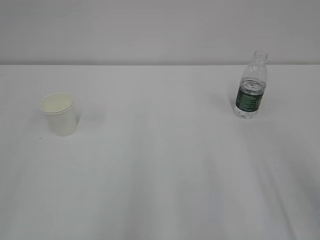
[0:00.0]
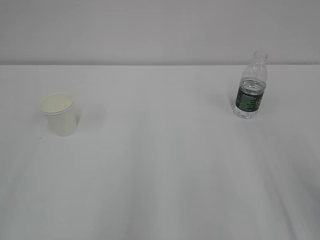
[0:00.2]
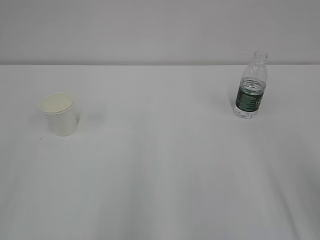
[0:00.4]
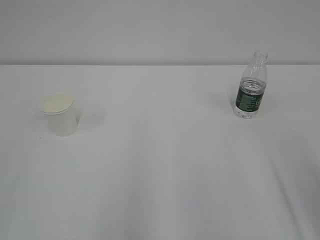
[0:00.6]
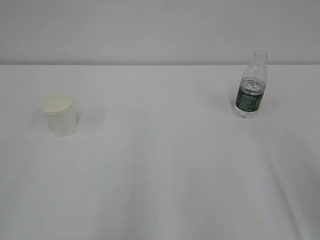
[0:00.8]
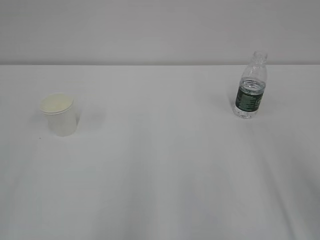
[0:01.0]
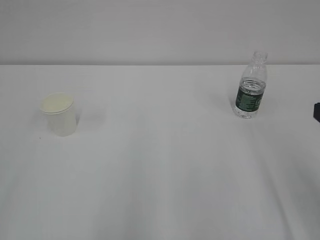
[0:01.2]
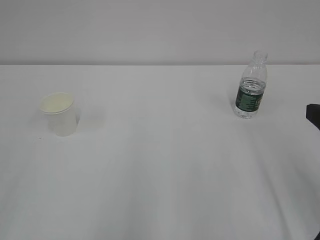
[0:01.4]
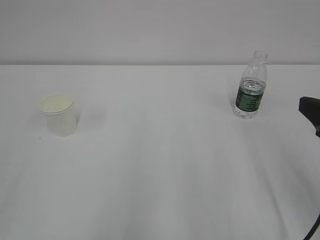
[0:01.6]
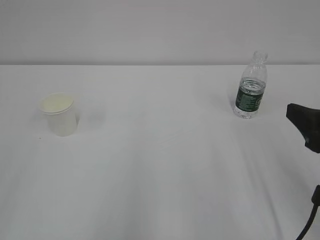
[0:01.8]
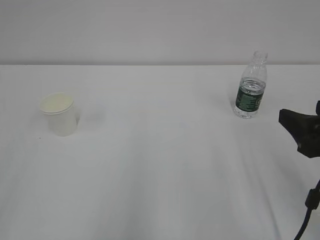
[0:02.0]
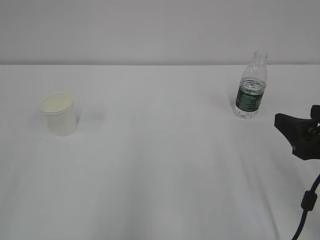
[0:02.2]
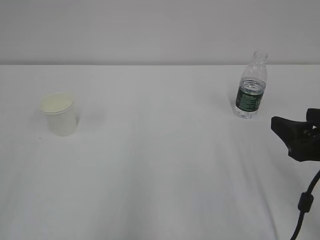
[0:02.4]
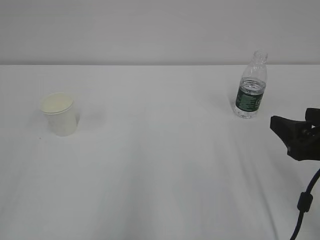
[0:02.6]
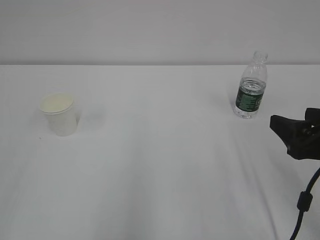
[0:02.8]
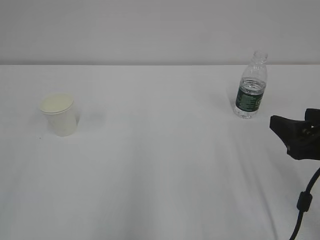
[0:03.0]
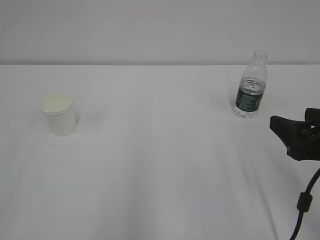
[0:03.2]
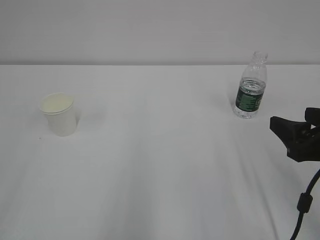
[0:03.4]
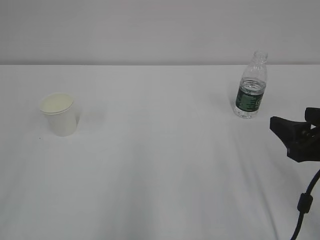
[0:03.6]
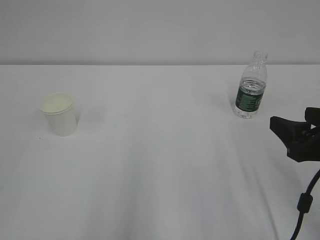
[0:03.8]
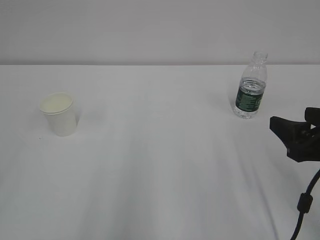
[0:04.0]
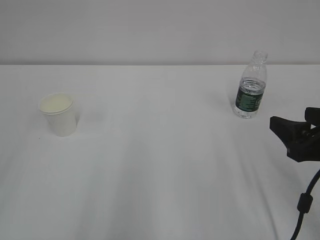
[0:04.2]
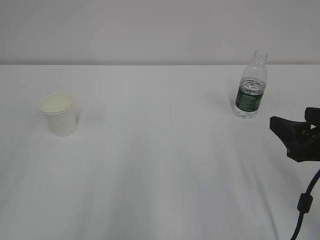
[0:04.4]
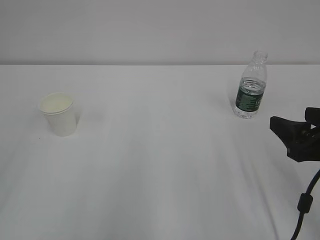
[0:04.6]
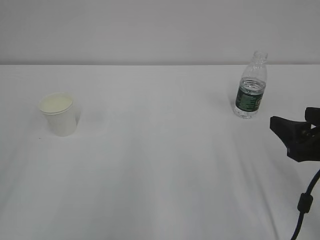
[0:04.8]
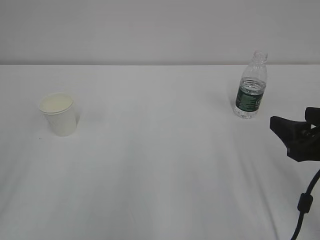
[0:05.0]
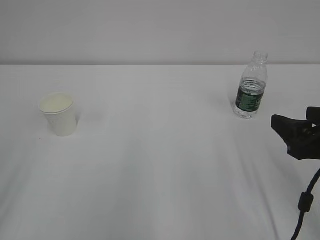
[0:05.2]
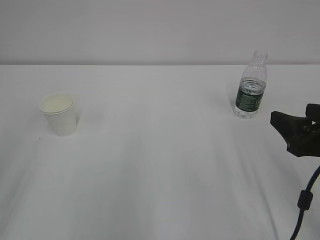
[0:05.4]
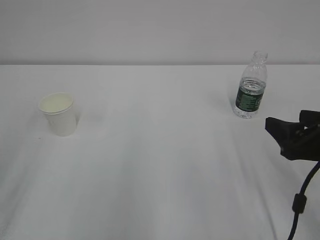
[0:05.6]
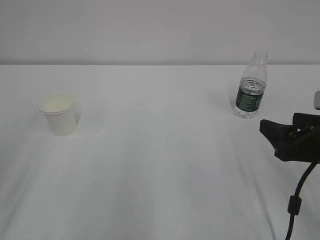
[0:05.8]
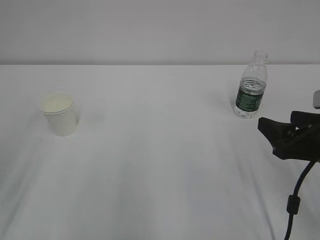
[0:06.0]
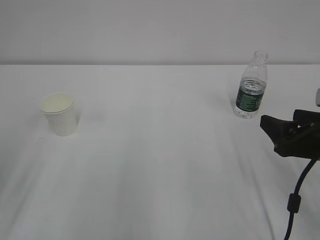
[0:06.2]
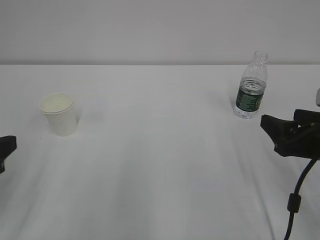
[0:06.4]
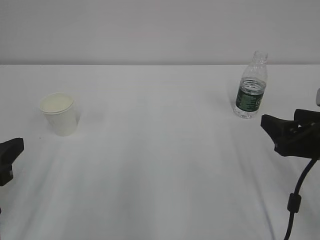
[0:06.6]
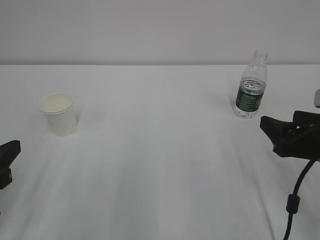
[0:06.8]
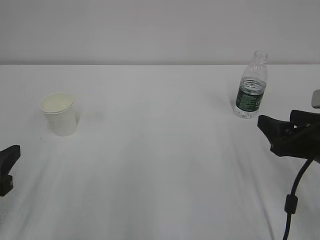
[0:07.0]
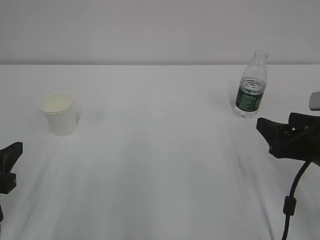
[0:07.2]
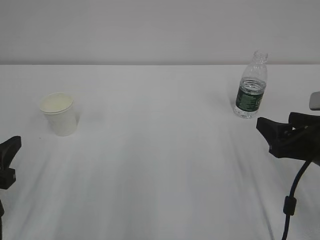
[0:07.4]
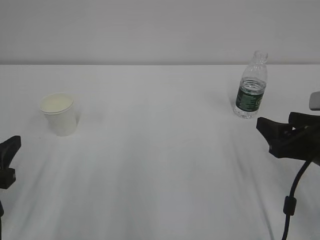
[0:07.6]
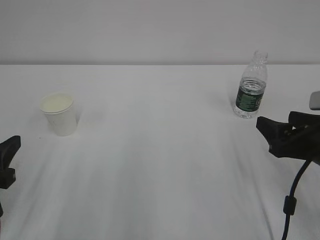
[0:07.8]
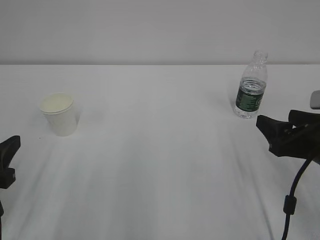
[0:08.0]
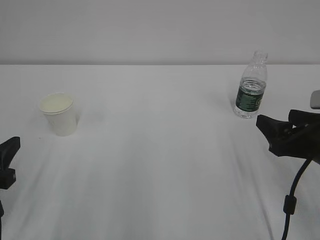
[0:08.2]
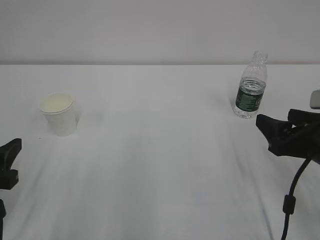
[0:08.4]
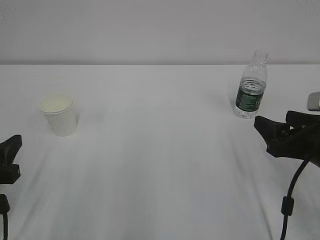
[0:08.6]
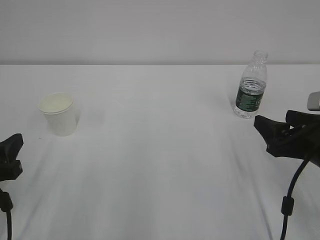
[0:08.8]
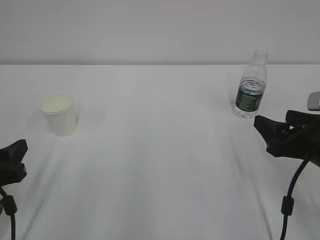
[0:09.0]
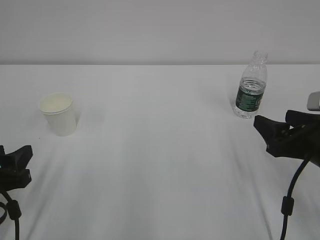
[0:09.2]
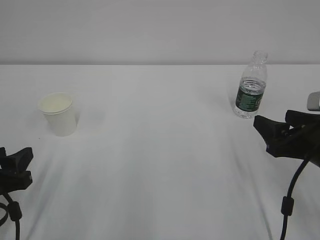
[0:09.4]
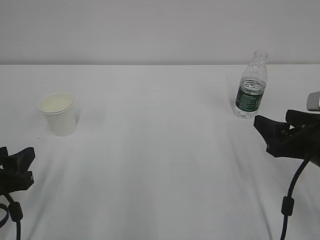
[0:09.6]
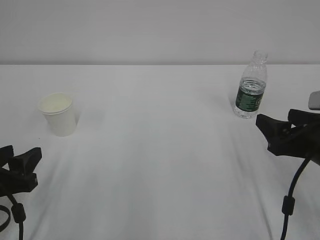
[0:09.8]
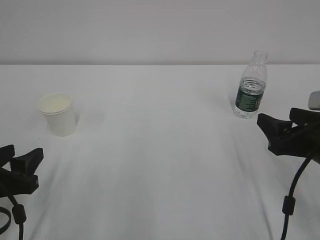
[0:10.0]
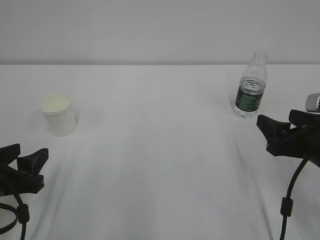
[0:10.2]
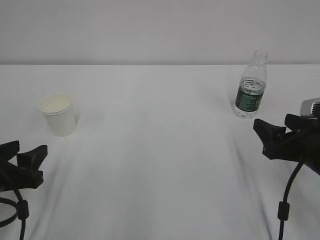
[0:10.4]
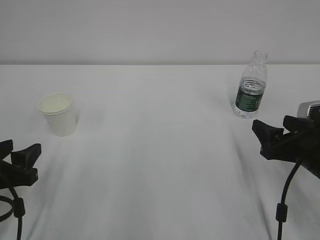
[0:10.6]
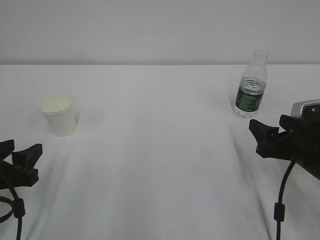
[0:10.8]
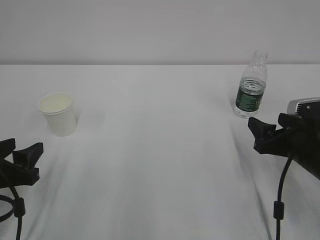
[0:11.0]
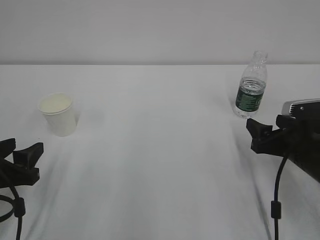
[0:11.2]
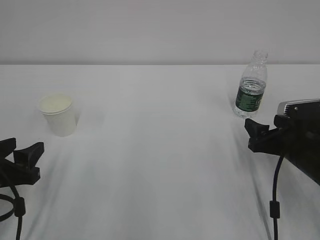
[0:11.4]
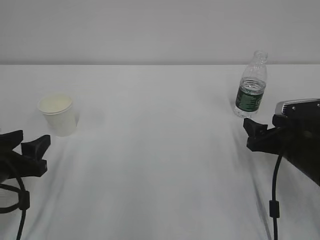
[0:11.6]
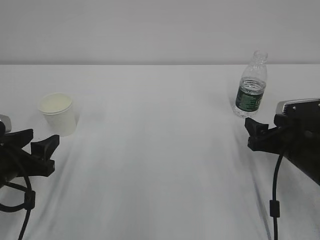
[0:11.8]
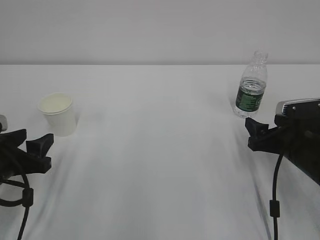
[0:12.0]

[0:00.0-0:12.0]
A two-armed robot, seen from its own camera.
0:00.0 to 0:01.6: The right gripper ends up some 5 cm from where it was.
0:01.6 to 0:03.0: The right gripper ends up about 5 cm from where it was.
0:06.0 to 0:07.6: The left gripper shifts about 5 cm downward.
0:07.6 to 0:10.4: The grippers make only small movements.
0:10.4 to 0:12.0: The right gripper moves some 5 cm.

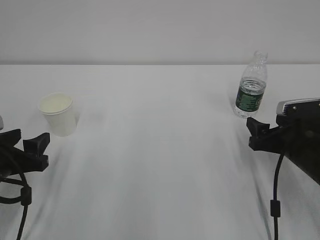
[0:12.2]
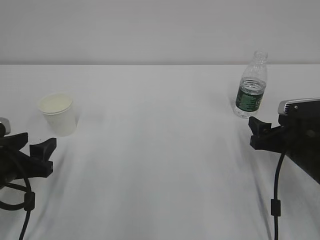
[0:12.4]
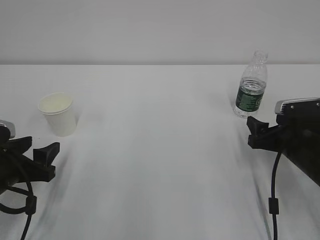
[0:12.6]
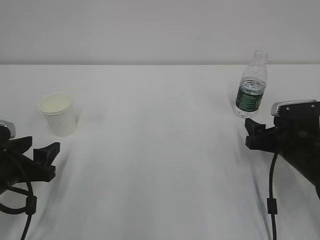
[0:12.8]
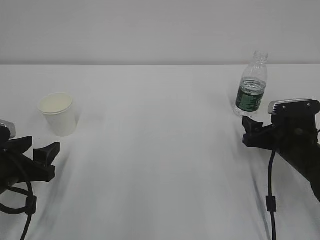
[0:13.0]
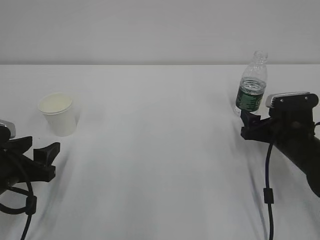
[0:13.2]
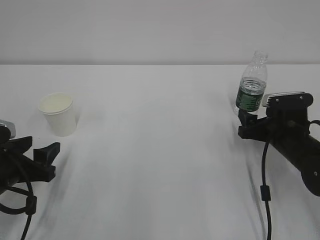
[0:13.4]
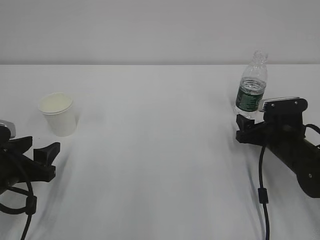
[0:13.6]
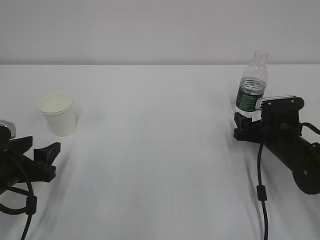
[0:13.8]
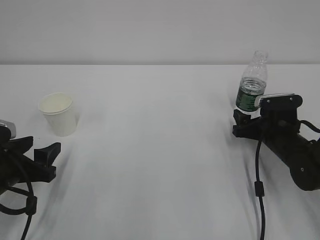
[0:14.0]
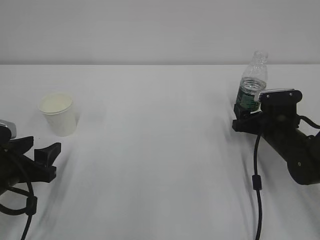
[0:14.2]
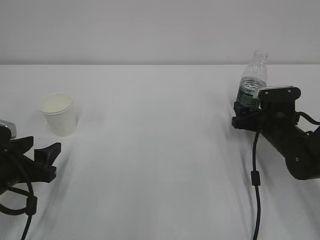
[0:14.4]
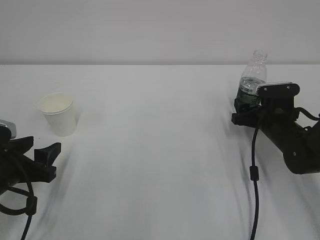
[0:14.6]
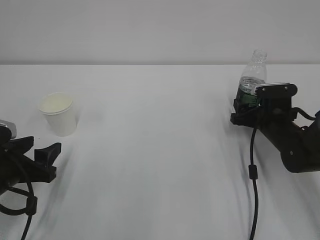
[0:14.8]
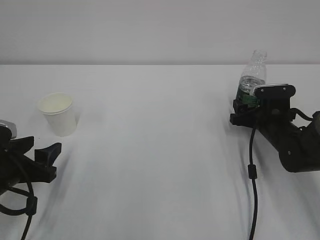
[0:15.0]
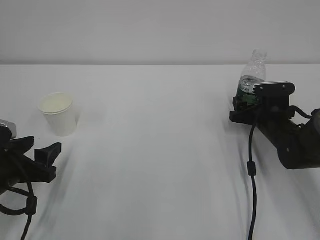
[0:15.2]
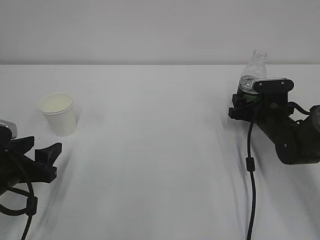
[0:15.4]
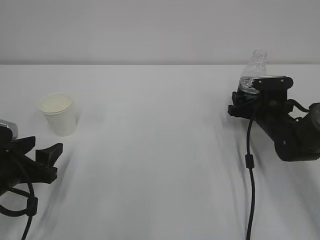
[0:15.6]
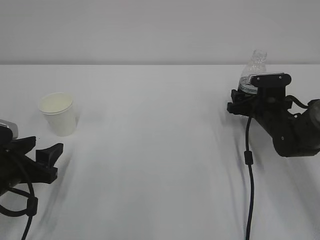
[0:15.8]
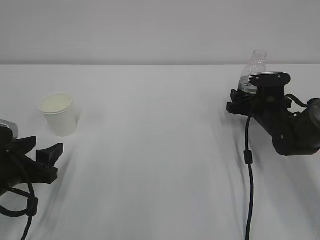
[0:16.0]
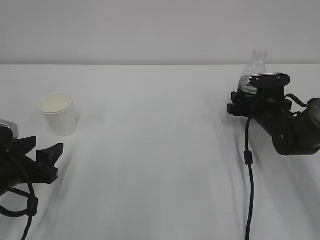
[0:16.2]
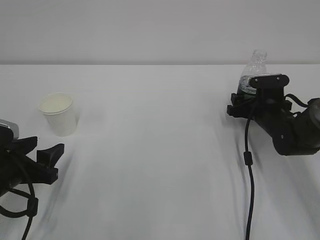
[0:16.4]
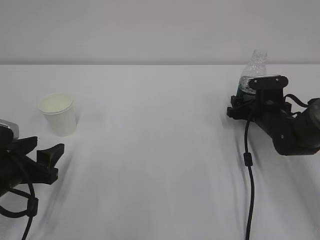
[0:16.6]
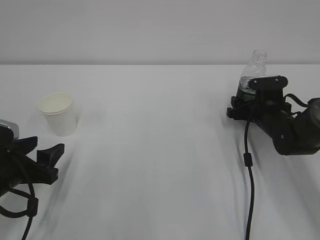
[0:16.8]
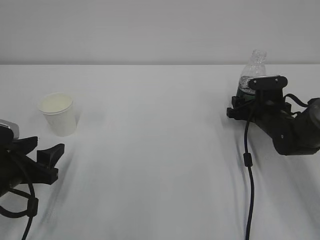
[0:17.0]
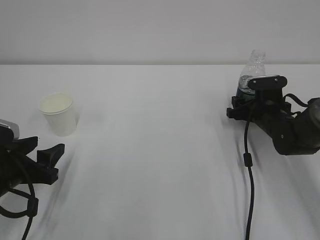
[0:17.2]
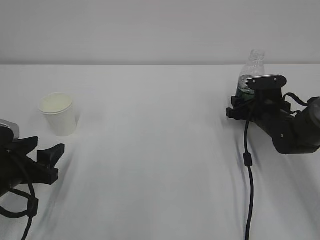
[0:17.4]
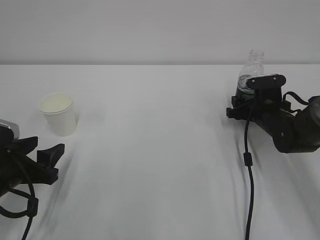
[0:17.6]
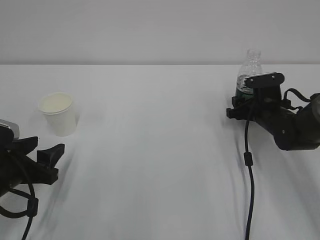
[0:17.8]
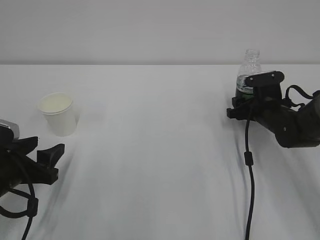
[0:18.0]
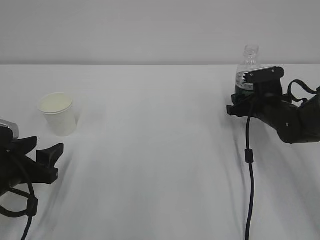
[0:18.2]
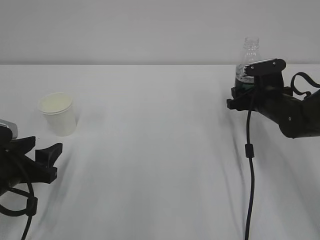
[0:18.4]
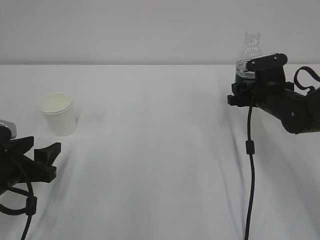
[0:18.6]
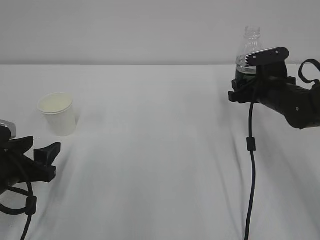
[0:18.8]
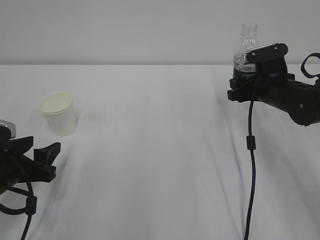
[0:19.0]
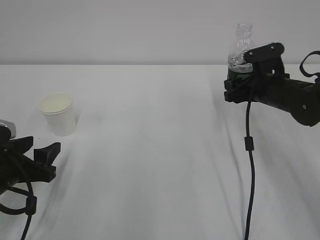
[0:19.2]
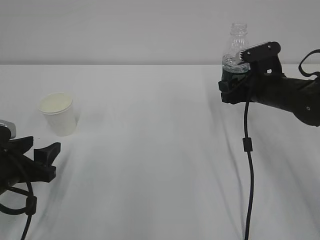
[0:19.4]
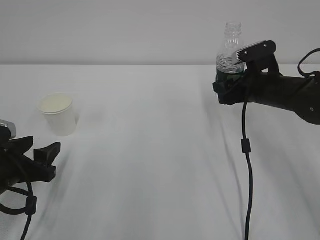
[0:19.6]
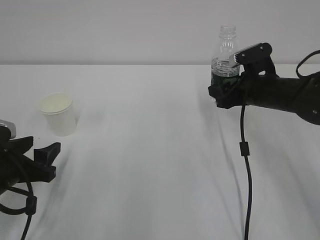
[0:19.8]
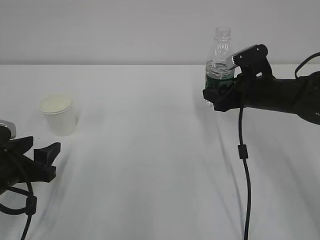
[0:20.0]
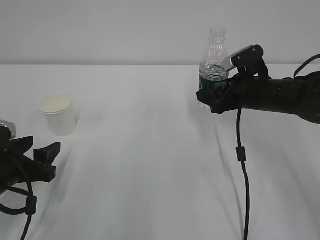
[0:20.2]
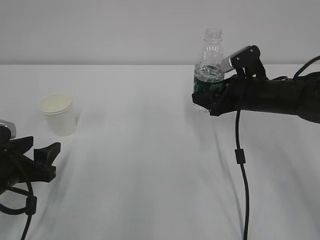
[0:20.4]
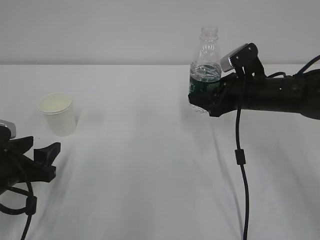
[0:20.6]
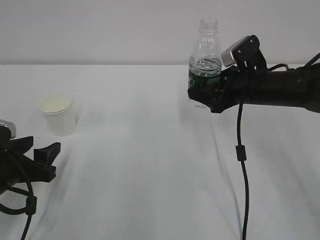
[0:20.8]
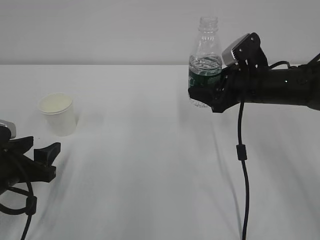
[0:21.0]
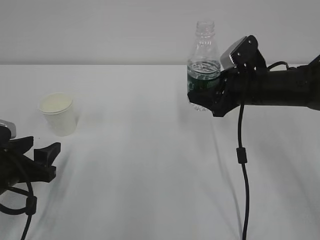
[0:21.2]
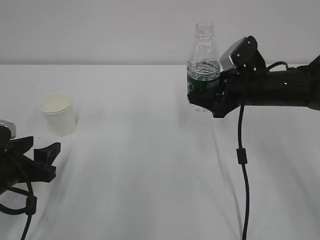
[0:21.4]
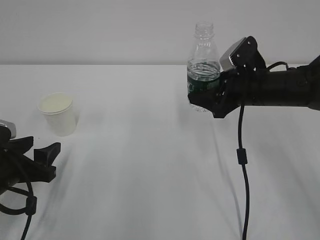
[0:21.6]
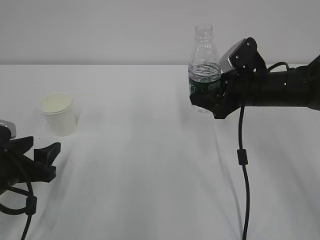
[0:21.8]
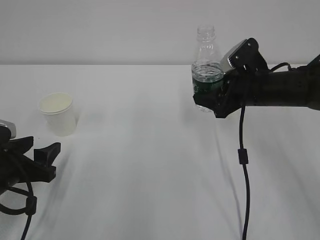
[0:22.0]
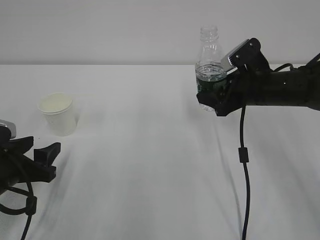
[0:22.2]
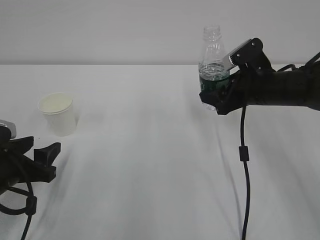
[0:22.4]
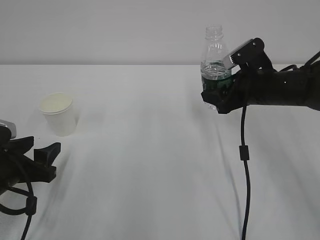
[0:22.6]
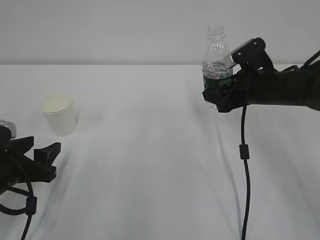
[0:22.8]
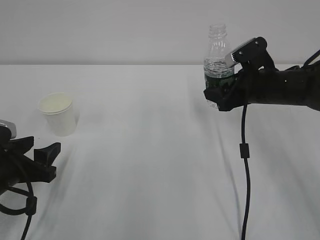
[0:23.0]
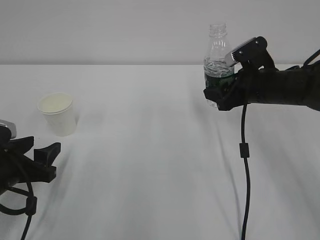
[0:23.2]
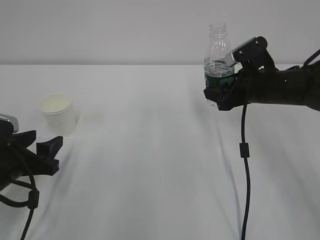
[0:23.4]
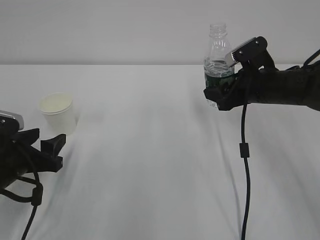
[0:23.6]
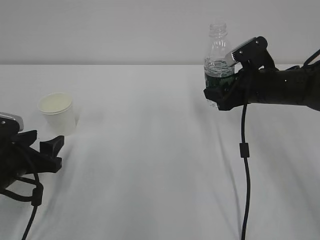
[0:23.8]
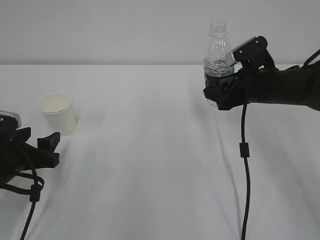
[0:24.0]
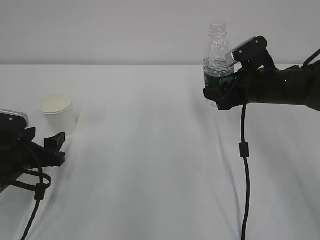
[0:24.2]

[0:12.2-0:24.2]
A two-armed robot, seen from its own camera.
0:12.2 to 0:13.8: The right gripper shifts roughly 5 cm forward.
0:13.8 to 0:15.2: The grippers move only a little.
0:15.2 to 0:16.6: There are only small adjustments of the grippers.
0:16.6 to 0:18.2: The right gripper closes.
0:18.2 to 0:19.8: The right gripper goes about 5 cm upward.
0:21.2 to 0:24.2: The grippers move only a little.
